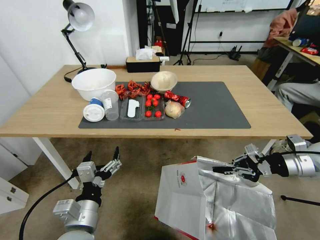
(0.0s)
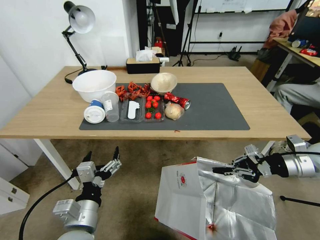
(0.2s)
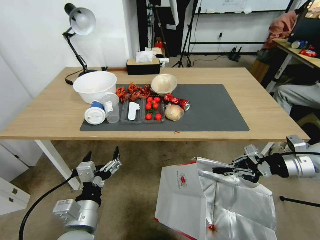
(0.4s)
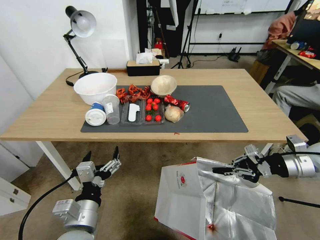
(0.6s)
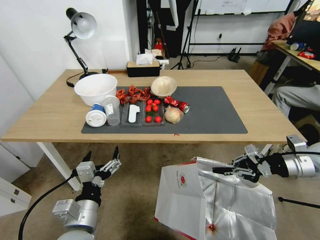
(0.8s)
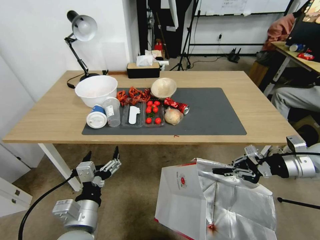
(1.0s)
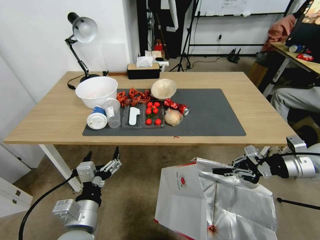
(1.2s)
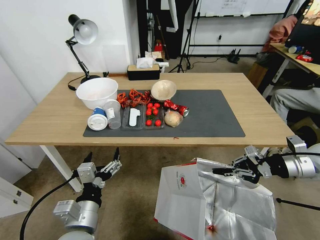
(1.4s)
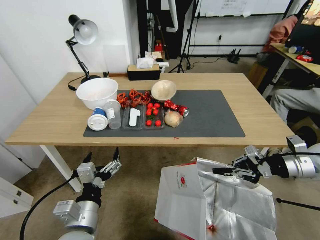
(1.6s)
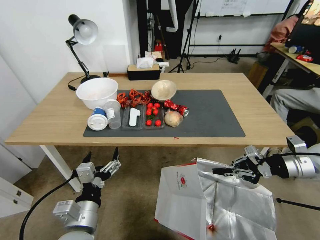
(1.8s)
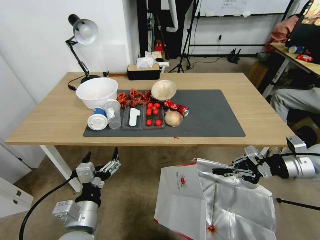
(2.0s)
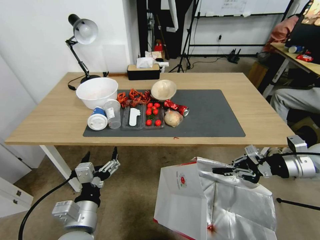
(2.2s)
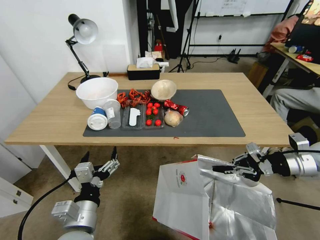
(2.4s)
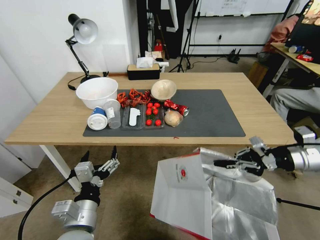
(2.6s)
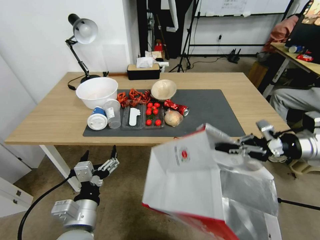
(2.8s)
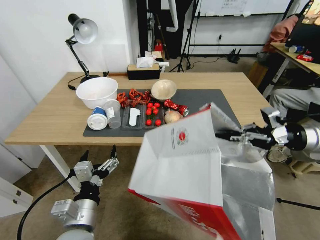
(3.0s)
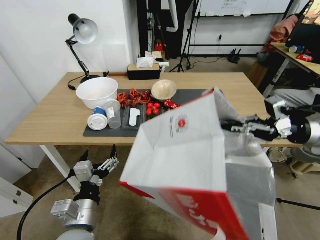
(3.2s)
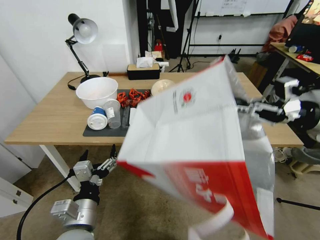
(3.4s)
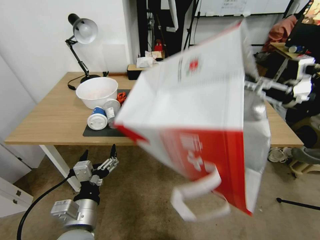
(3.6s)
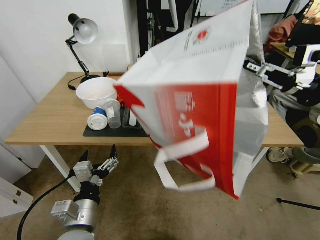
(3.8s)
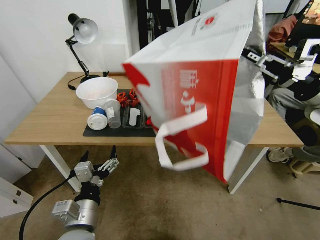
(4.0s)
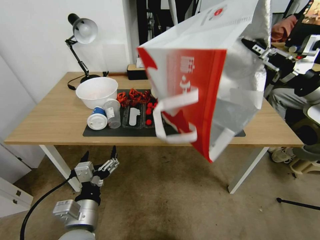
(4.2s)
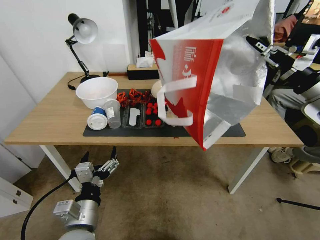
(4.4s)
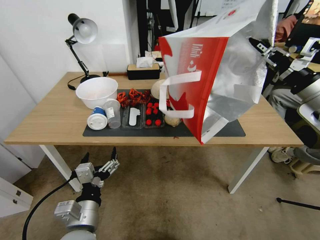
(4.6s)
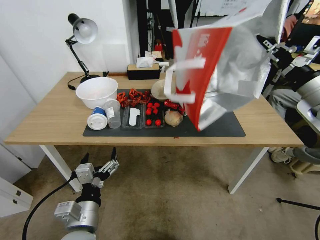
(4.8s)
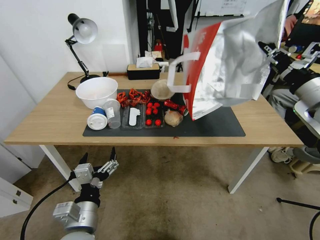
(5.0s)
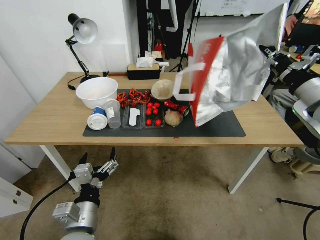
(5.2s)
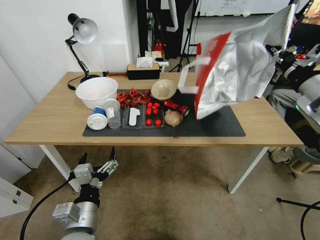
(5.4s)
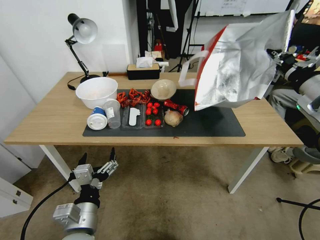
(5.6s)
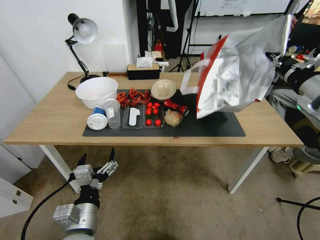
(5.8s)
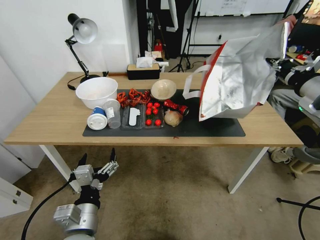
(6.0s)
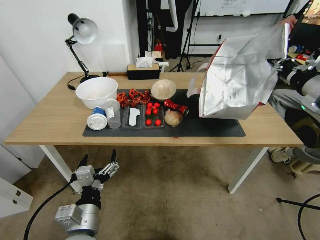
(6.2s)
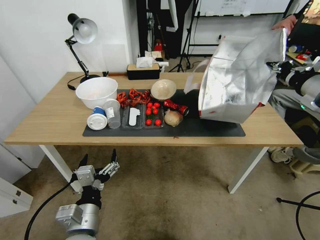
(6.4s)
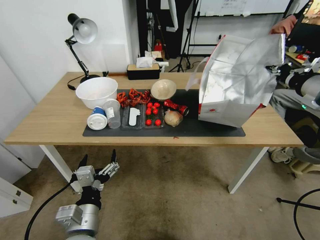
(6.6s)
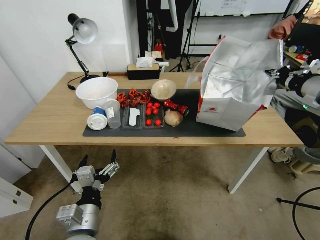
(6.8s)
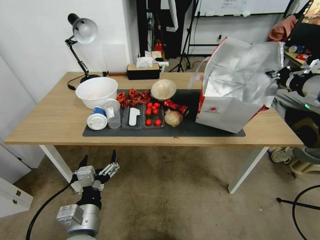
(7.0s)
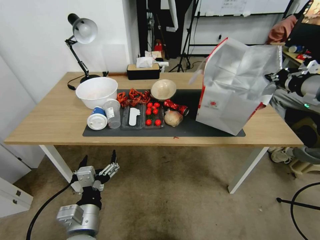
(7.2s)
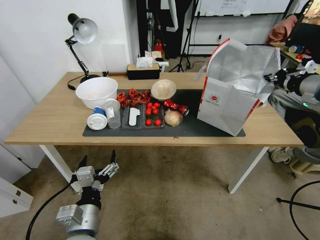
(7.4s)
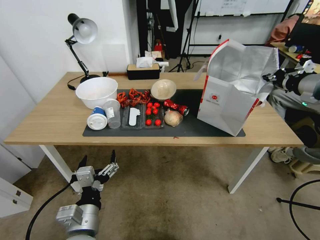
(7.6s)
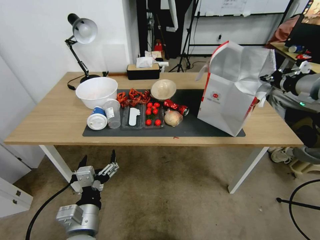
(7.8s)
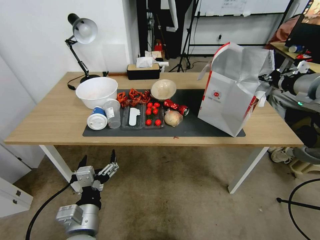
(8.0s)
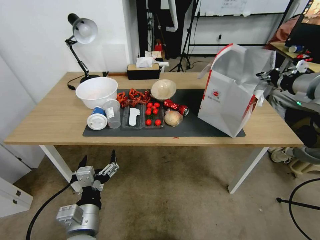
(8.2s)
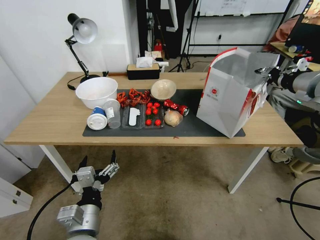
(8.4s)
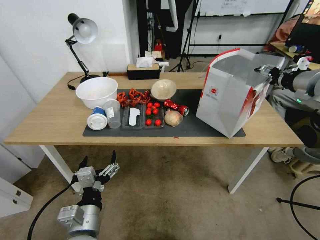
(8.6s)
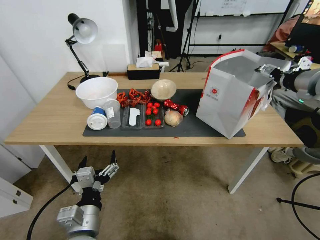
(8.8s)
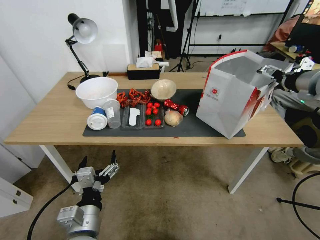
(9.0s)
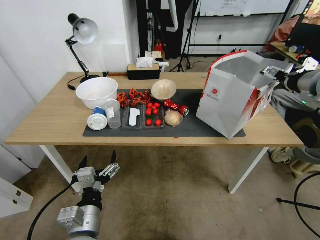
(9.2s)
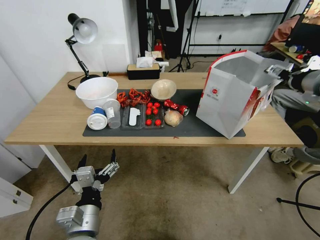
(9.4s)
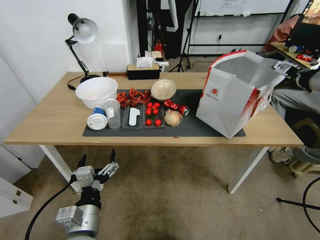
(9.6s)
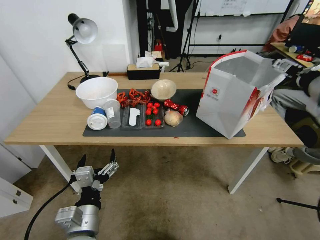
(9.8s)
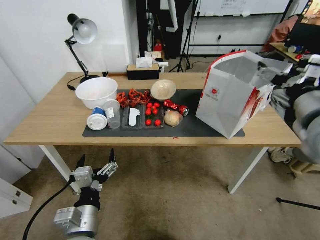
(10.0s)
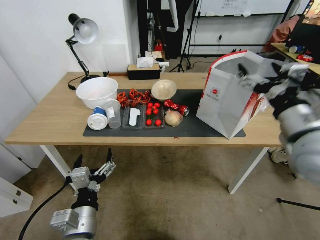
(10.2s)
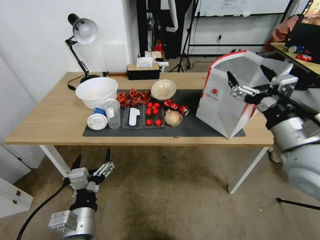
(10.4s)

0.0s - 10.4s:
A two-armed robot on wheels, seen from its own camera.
Task of the whole recording: Pick up the food delivery bag from the floor and place it on the table.
1.4s - 3.0s: The right gripper heads upward, covering roughly 5 cm.
3.0s - 4.4s: The right gripper heads upward, covering about 5 cm.
7.4s - 9.0s: The right gripper opens its fingers.
9.0s - 10.4s: The right gripper heads backward, downward and to the left, covering some 20 cm.

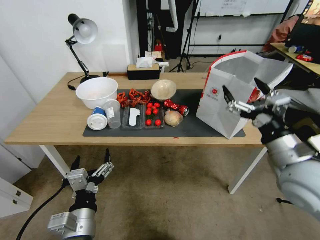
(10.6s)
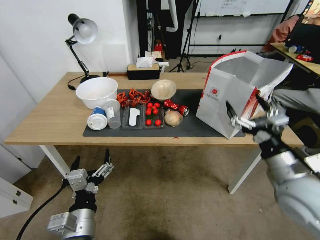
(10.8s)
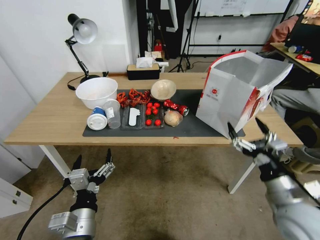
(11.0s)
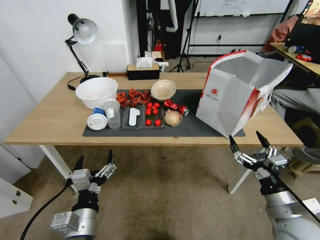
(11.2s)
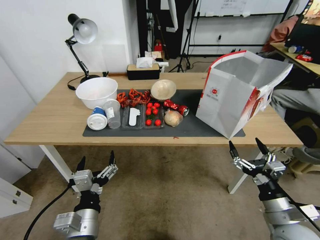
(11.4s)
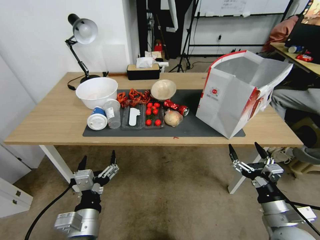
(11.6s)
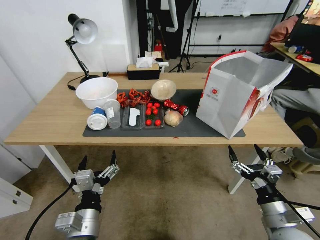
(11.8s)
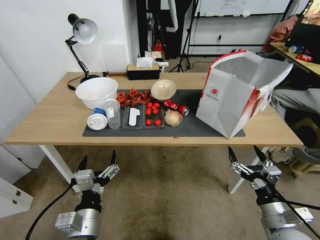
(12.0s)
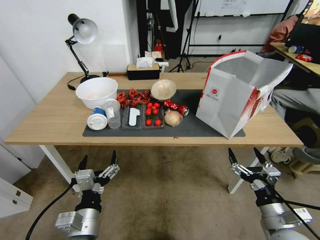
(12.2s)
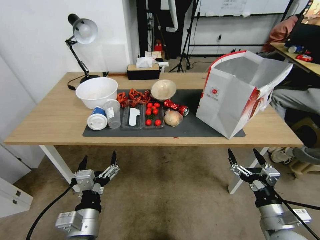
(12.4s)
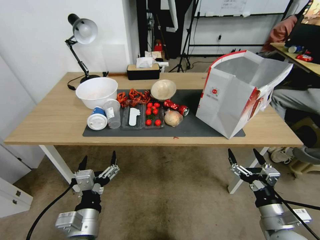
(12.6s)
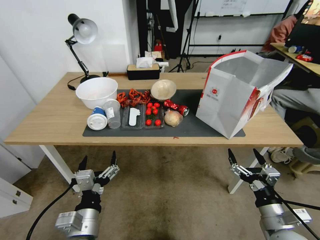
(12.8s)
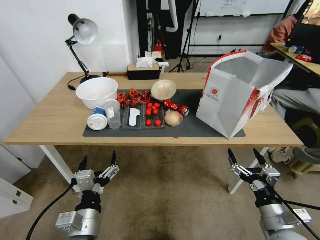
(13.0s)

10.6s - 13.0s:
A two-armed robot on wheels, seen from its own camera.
Task of the whole recording: Pick up the food delivery bag from the floor and place it on the table.
10.6s - 11.8s: The right gripper is displaced downward and backward by approximately 20 cm.
11.8s - 13.0s: The two grippers keep their place.

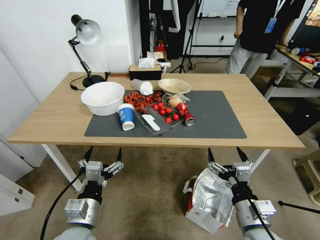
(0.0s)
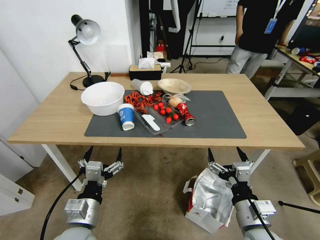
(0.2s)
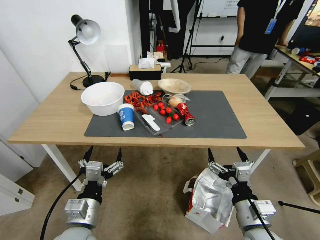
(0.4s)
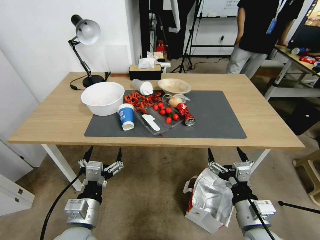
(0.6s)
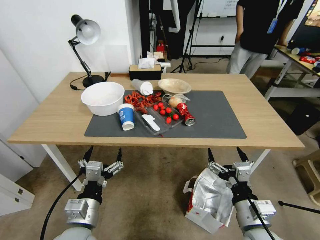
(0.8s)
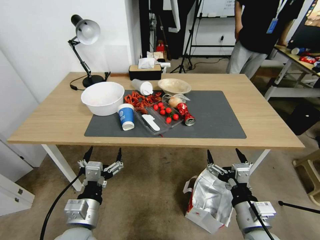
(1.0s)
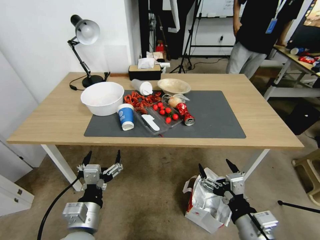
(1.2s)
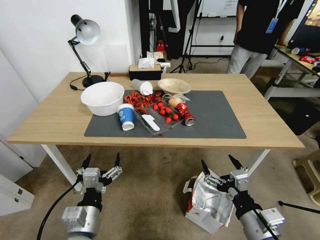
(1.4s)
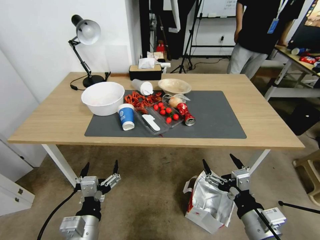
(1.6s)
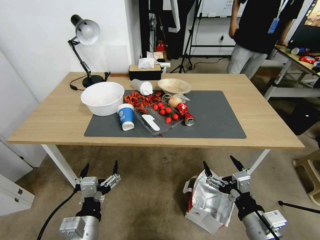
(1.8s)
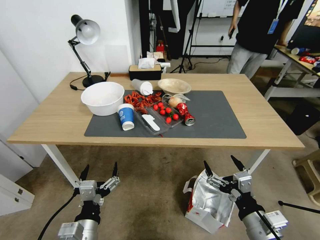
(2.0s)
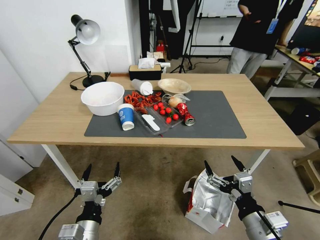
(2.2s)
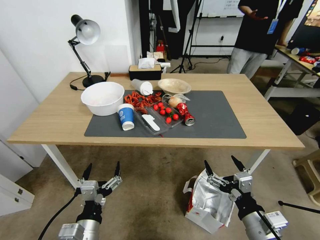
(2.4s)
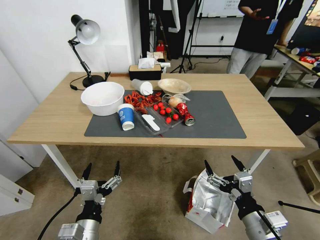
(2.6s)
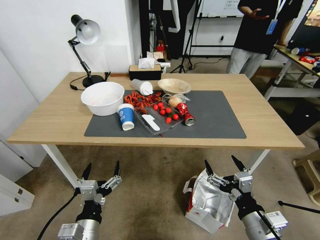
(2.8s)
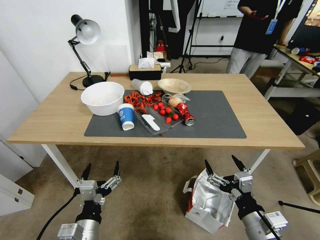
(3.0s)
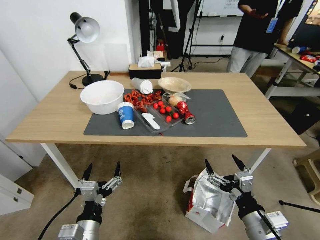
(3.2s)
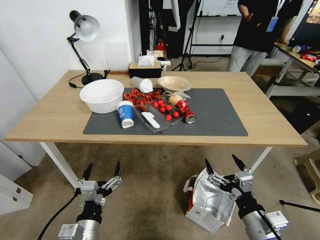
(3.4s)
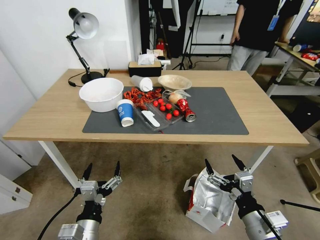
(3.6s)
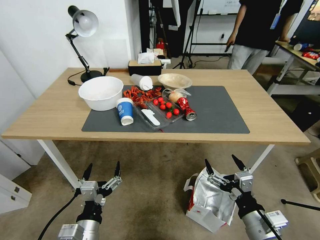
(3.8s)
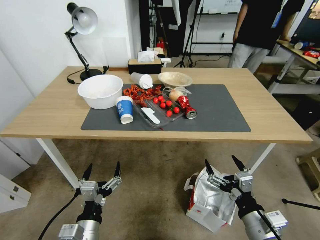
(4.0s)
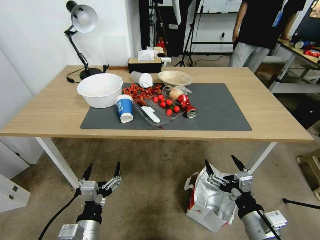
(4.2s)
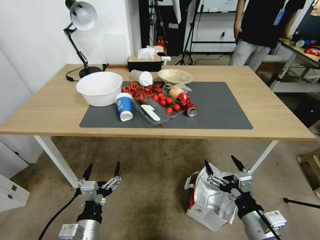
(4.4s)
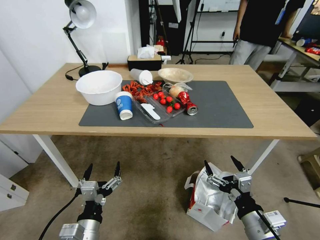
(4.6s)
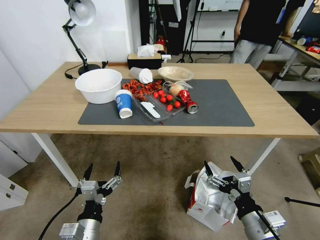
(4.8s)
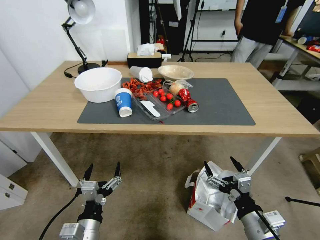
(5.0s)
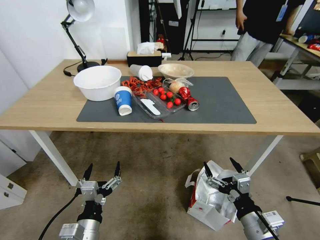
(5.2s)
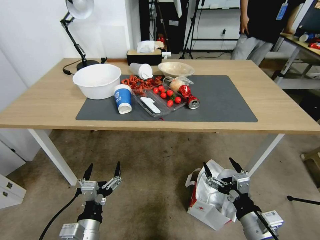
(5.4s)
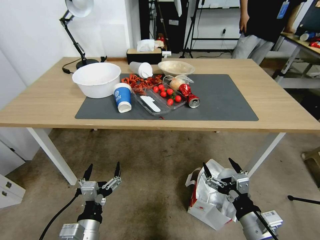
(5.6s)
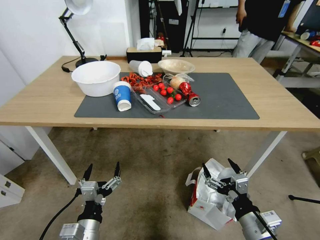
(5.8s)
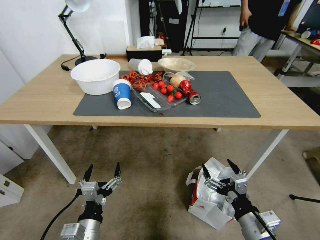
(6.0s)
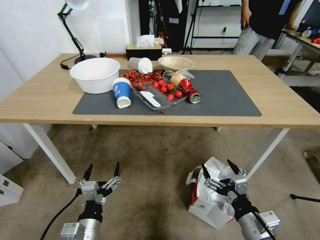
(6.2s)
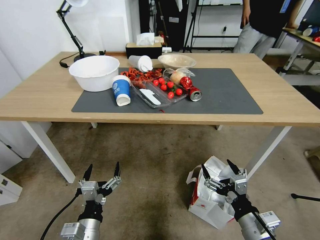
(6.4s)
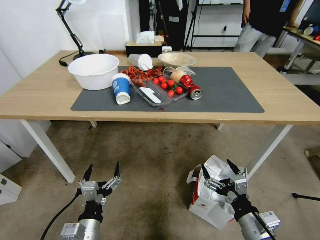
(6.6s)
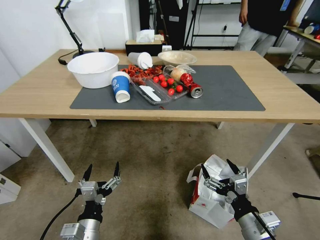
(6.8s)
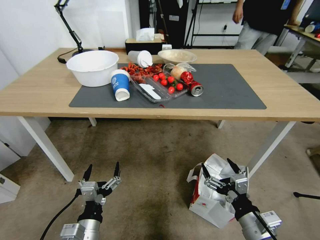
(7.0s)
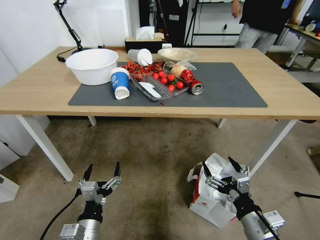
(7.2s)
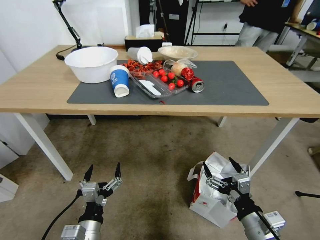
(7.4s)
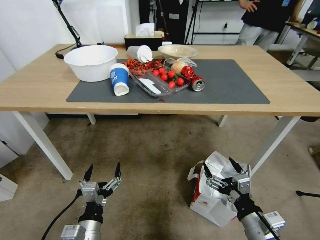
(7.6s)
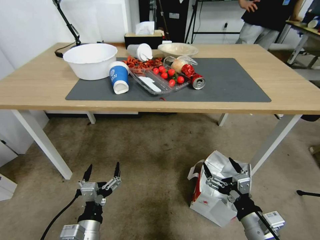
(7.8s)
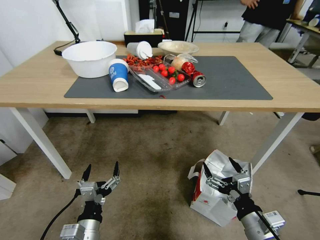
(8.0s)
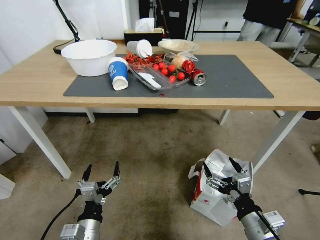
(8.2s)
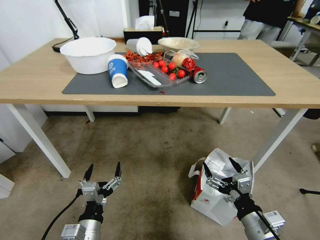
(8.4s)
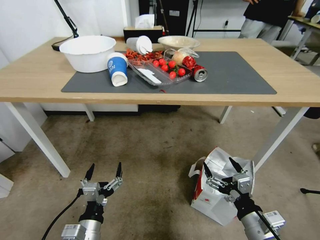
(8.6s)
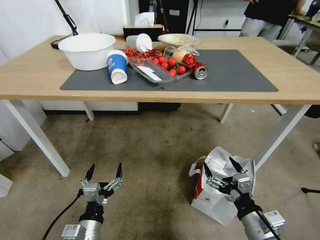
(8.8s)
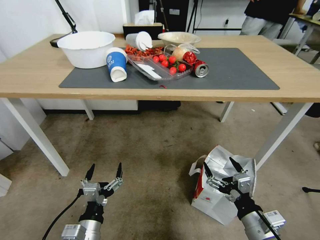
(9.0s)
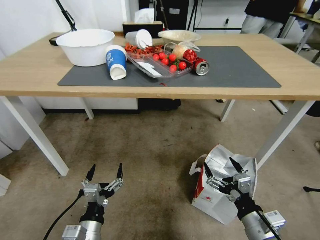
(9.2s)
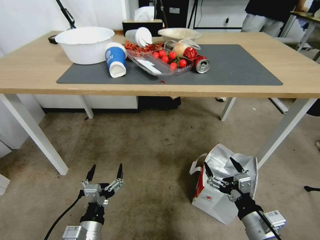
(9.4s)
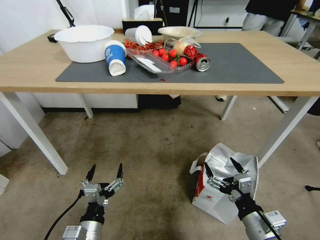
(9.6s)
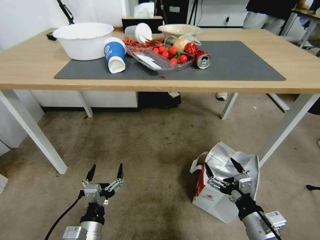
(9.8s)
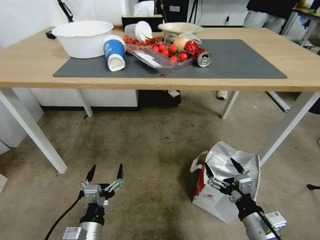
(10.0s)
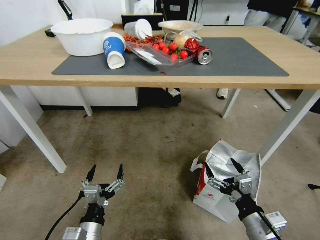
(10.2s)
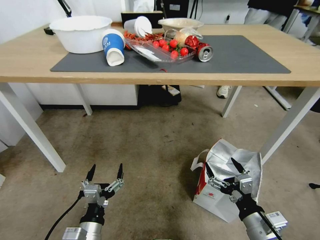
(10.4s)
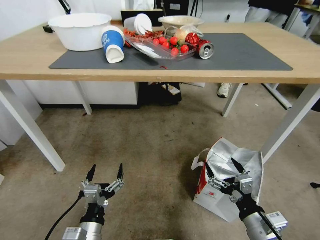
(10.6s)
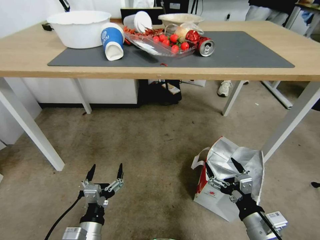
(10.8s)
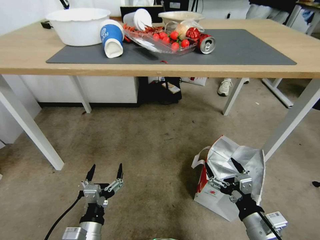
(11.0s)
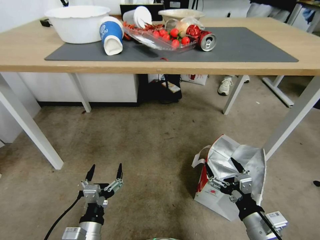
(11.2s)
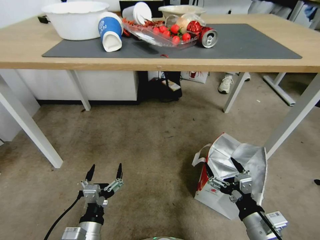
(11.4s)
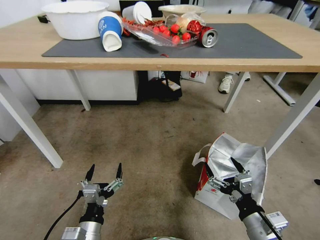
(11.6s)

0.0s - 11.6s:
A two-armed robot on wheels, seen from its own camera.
Task of the whole recording: Pick up the food delivery bag from the floor and place it on the table.
1.4s - 2.8s: There are only small adjustments of the grippers.
